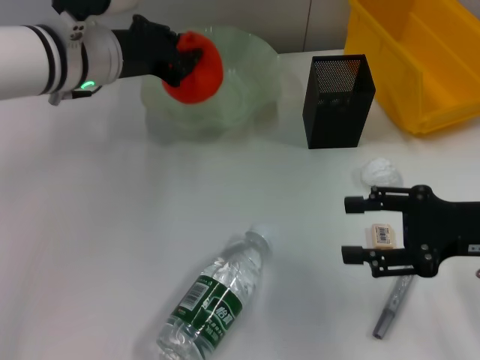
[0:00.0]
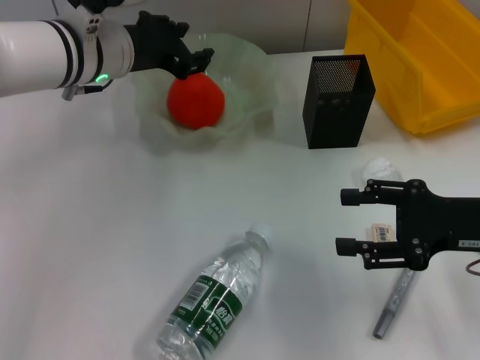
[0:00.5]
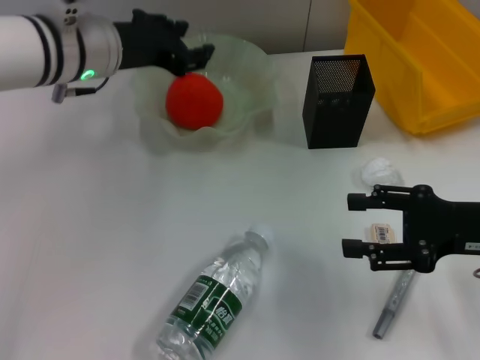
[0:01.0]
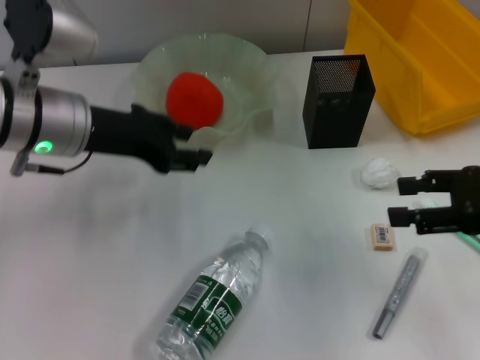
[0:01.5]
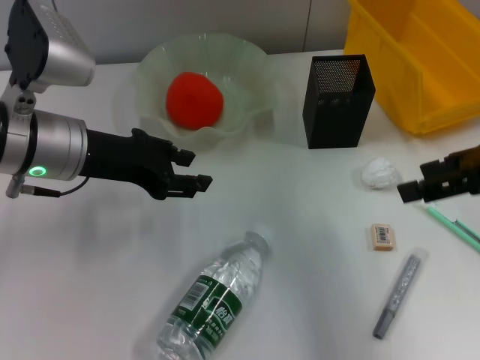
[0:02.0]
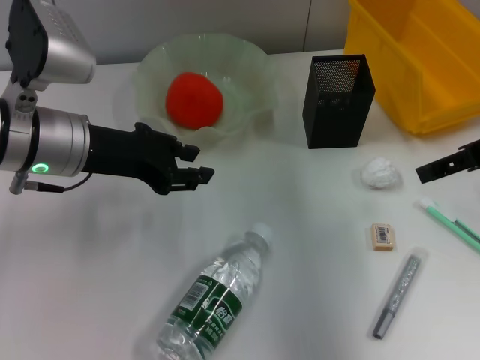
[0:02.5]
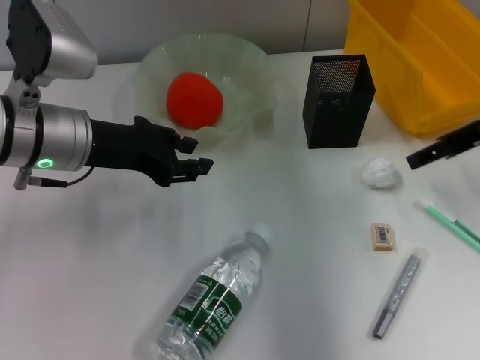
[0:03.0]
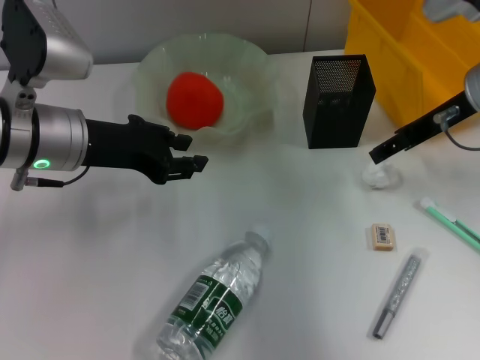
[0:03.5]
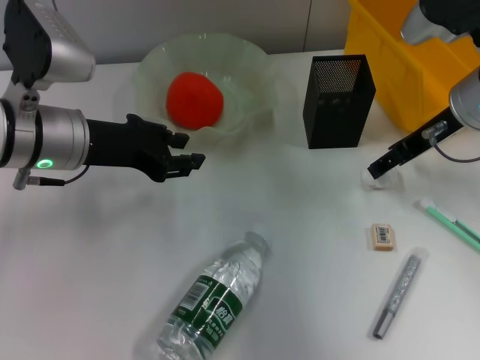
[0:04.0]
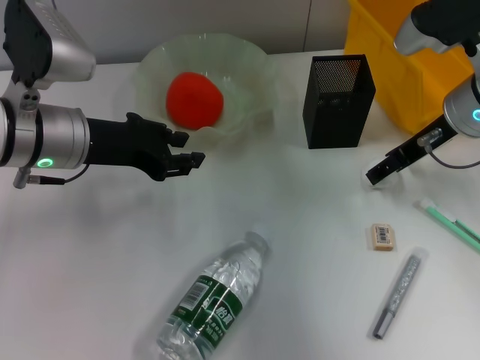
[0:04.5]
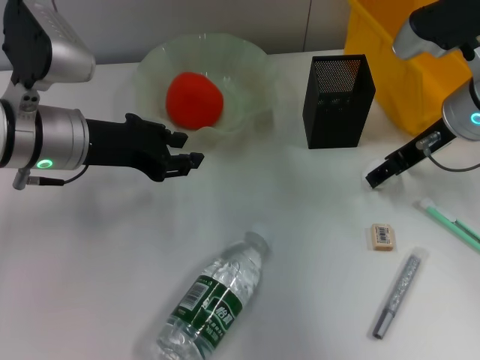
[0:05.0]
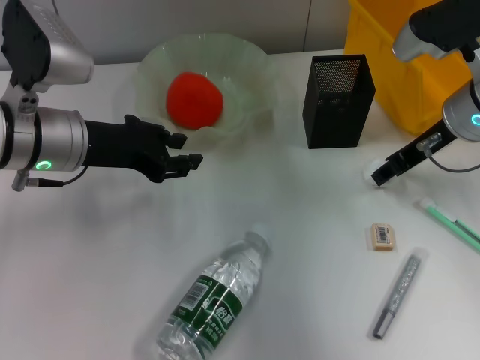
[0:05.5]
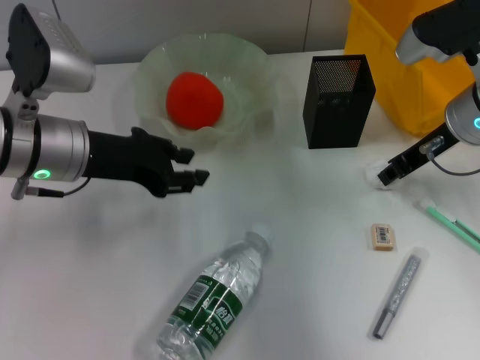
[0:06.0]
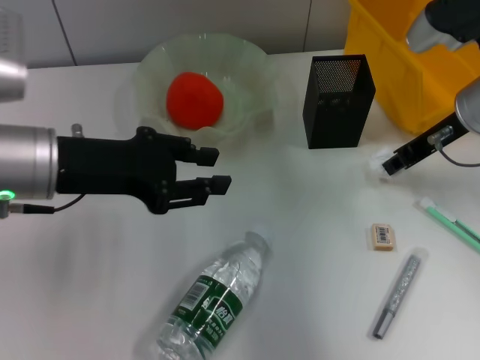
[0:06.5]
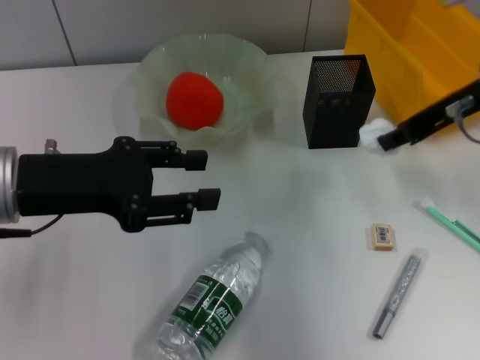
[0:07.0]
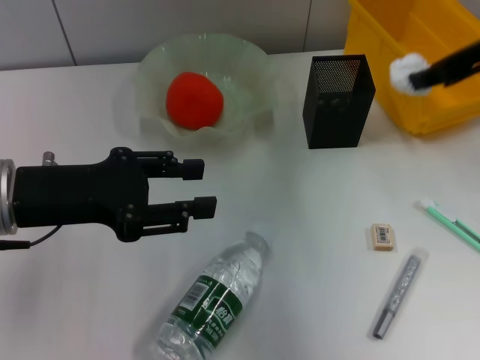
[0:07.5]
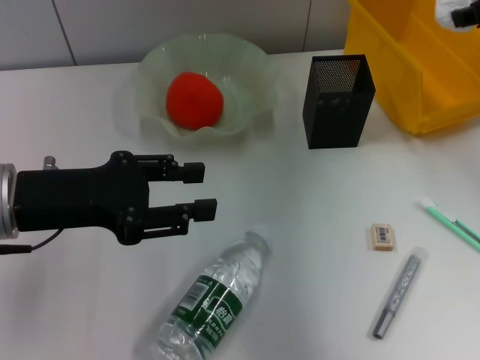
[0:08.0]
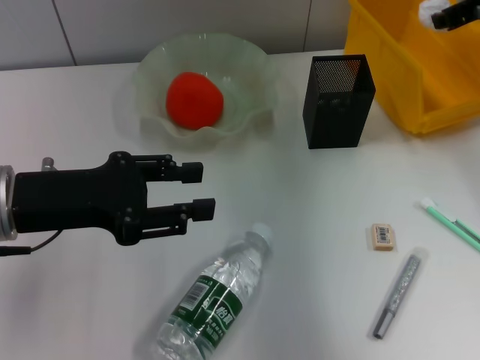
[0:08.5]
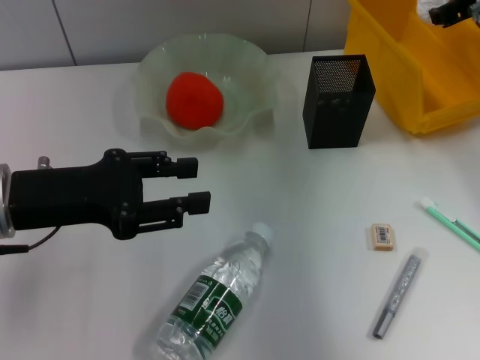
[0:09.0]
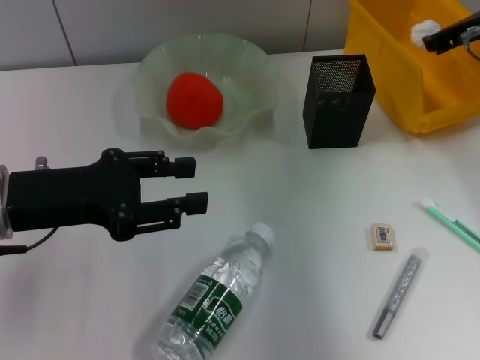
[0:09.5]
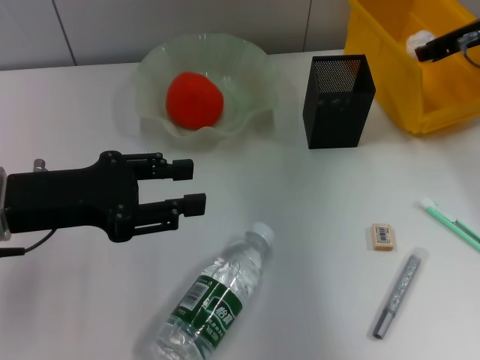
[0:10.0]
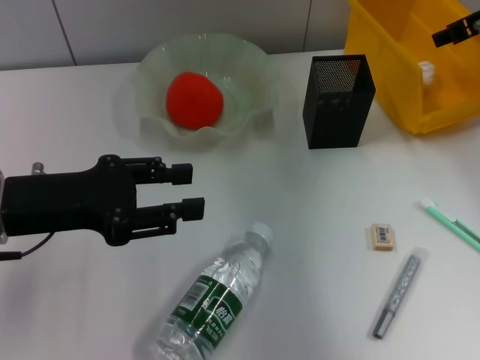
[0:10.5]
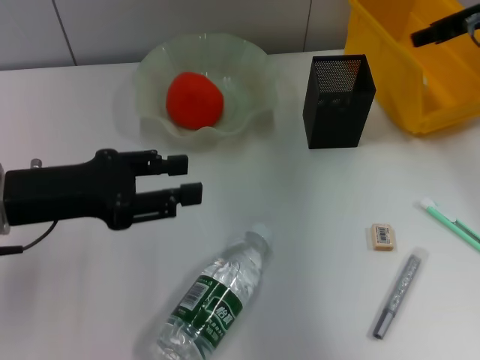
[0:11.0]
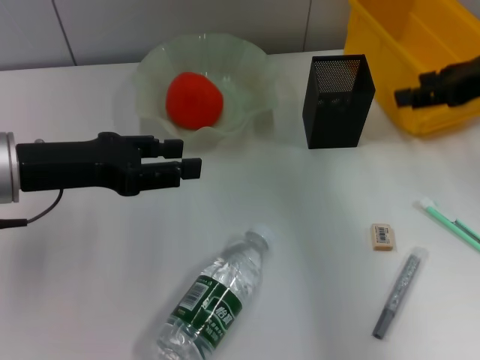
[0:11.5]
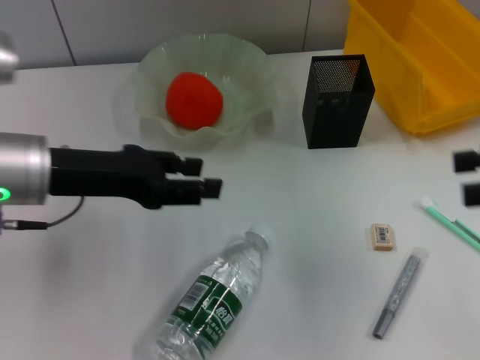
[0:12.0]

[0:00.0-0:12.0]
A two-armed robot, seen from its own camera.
Step, 0:01.0 to 0:06.0: Grab the paper ball with the right hand.
Step, 0:06.5 to 0:10.0: Place the paper ball into the trash can with the right hand.
0:00.0 to 0:02.0: The left gripper moves backward, roughly 5 cm, and opens its fingers, while the right gripper shifts about 10 cm upward.
0:02.0 to 0:04.0: The right gripper shifts approximately 15 cm forward, downward and to the left.
0:04.0 to 0:06.0: The right gripper closes.
0:06.0 to 0:08.0: The left gripper travels backward by roughly 5 cm. The right gripper is displaced upward by some 15 cm.
0:08.0 to 0:10.0: The right gripper is displaced downward and forward by about 10 cm.
0:10.0 to 0:12.0: The right gripper travels backward by approximately 20 cm, and opens up.

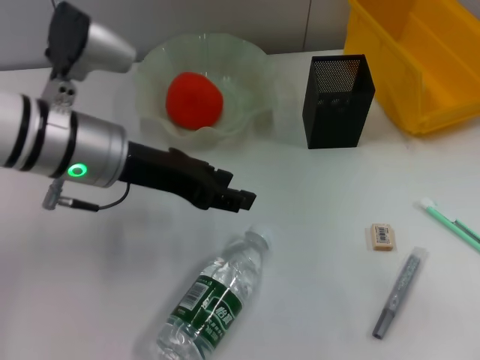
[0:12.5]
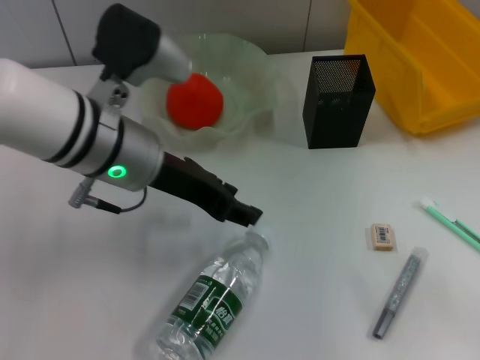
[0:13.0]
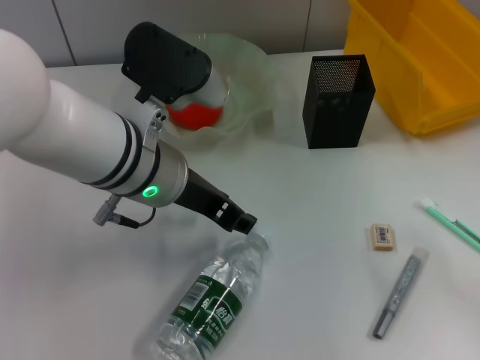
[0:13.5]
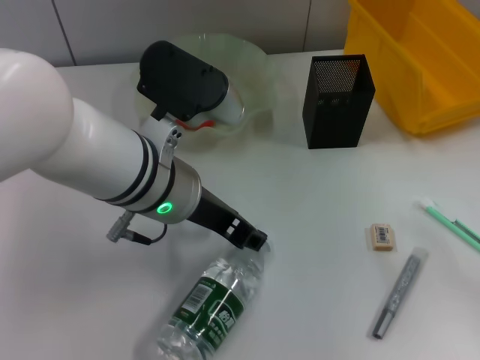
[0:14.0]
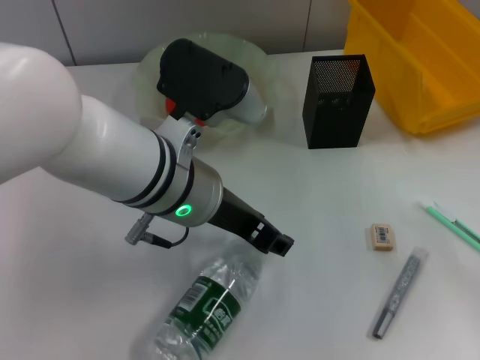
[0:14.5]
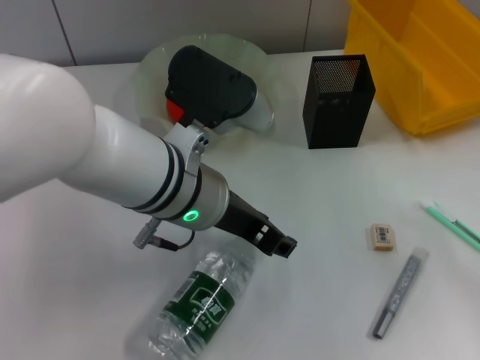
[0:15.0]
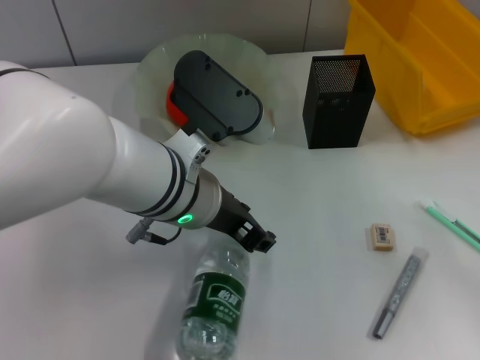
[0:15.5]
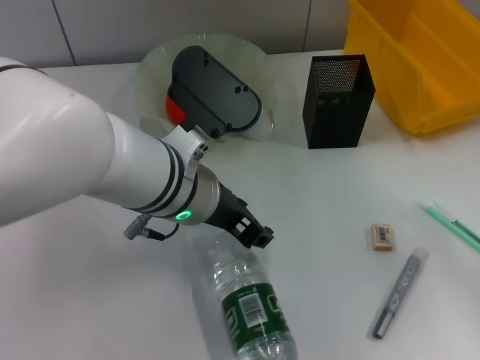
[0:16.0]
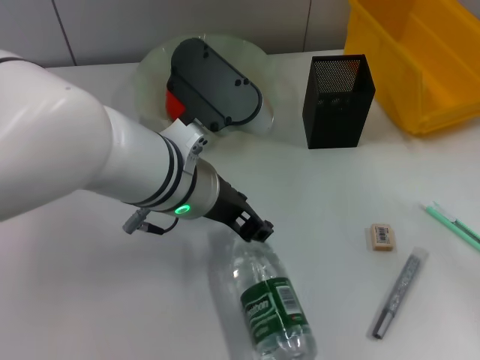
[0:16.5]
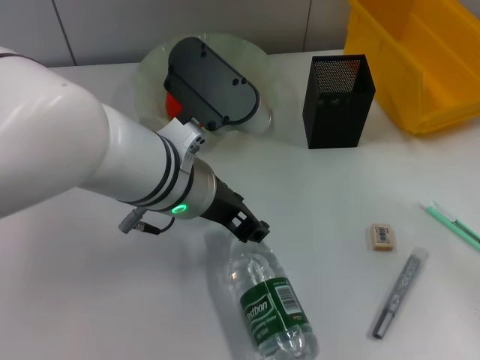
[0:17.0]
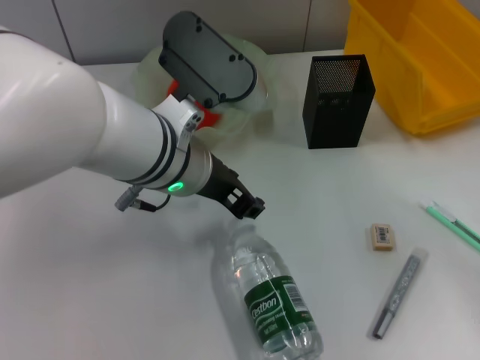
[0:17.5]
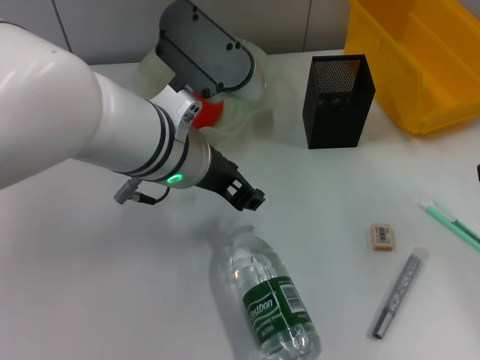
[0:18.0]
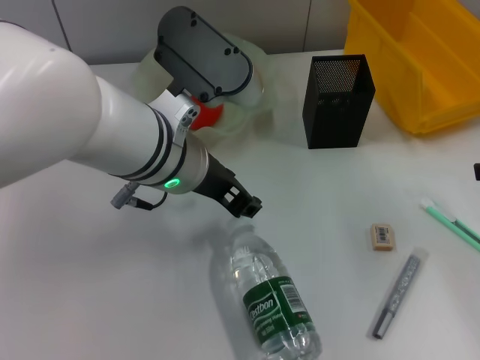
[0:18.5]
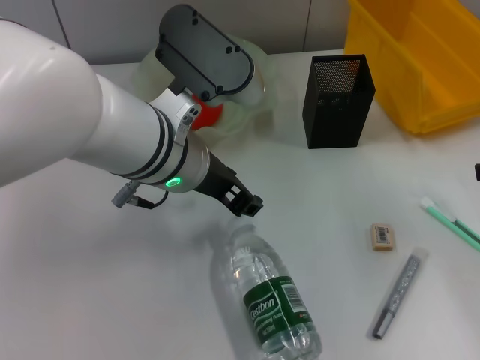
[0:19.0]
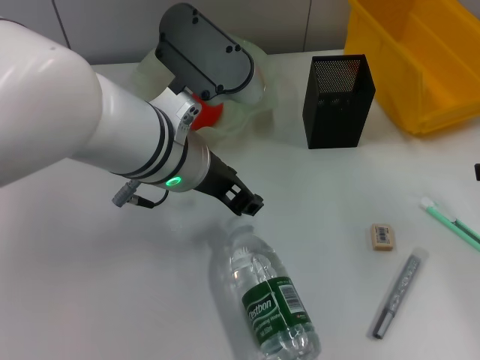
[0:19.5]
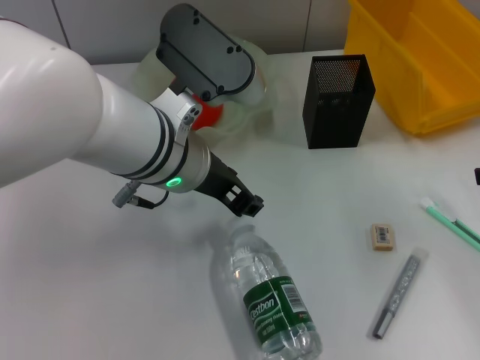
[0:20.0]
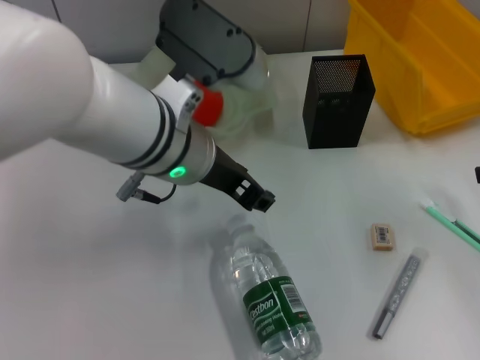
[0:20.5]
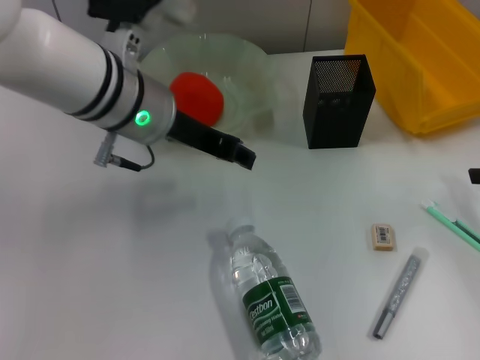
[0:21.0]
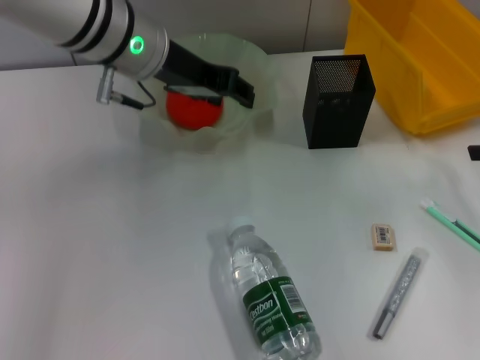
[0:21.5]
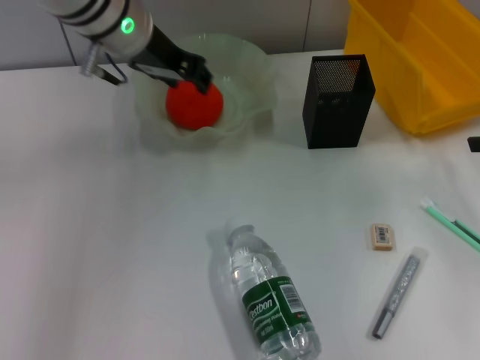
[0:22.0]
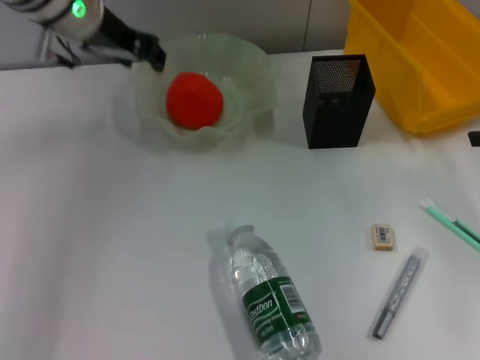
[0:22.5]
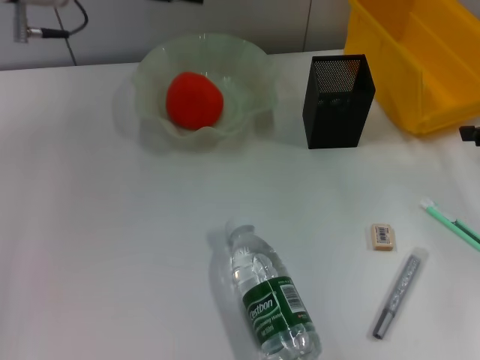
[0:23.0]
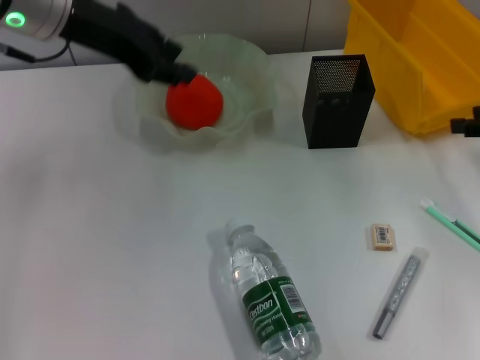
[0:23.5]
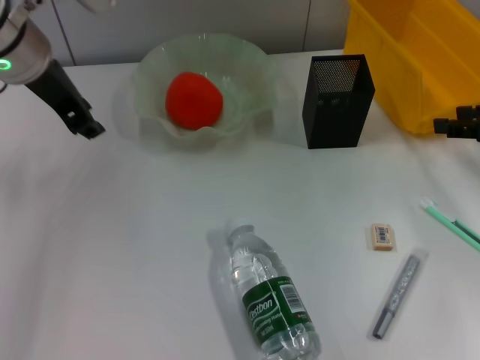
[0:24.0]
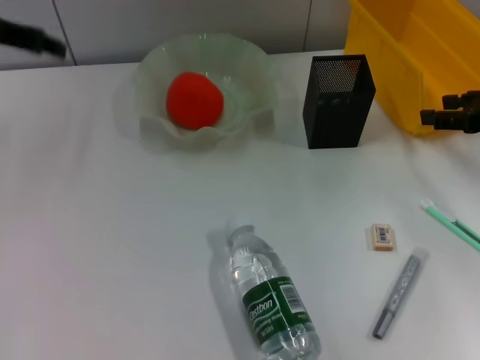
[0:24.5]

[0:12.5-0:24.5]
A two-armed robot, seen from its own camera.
0:12.5 to 0:14.5: The left gripper moves to the right, roughly 10 cm.
0:14.5 to 0:16.5: The grippers stay close to where they were, moving slightly.
0:18.5 to 0:20.5: Neither gripper changes place.
0:20.5 to 0:22.5: The right gripper moves forward, some 5 cm. Meanwhile the left gripper heads forward, to the left and upward, covering some 15 cm.
0:22.5 to 0:24.5: The right gripper moves some 5 cm. Meanwhile the left gripper travels to the left by some 15 cm.

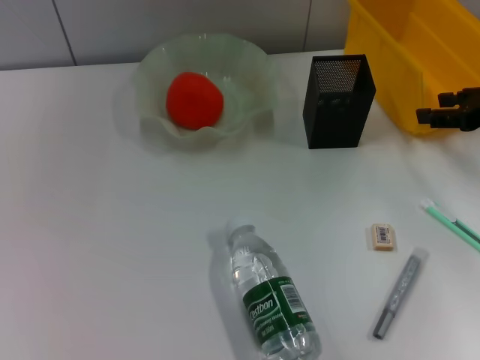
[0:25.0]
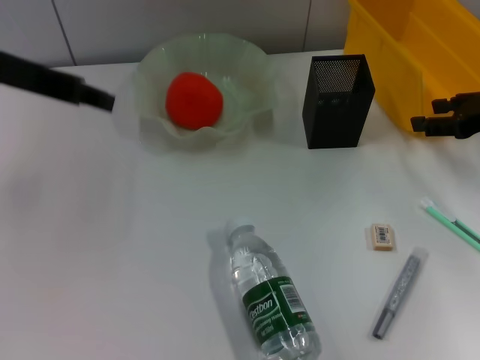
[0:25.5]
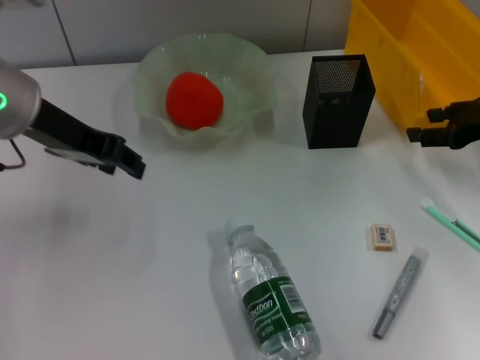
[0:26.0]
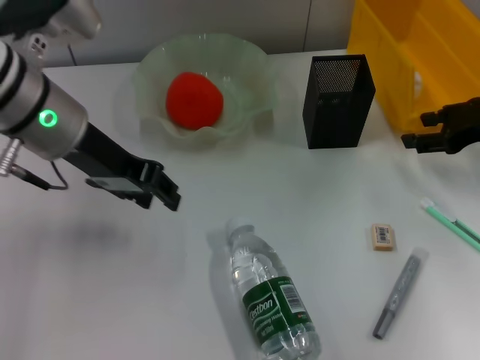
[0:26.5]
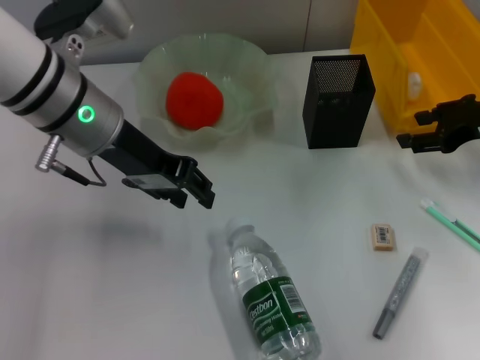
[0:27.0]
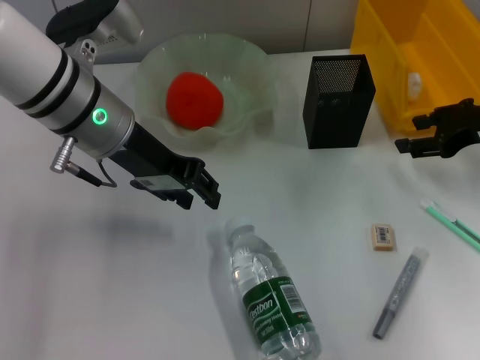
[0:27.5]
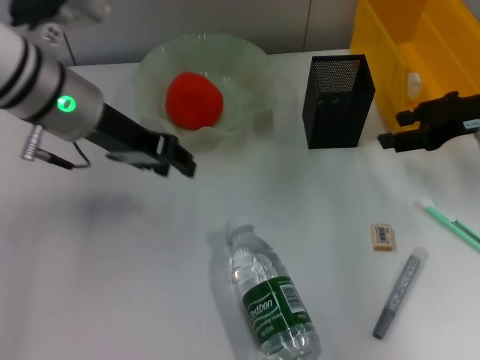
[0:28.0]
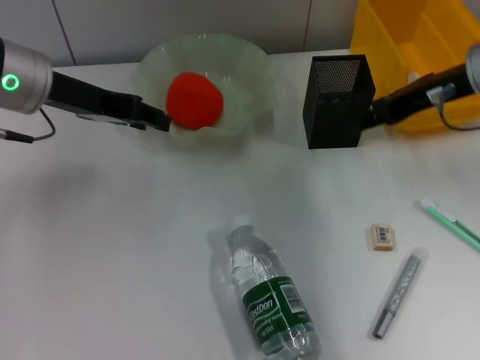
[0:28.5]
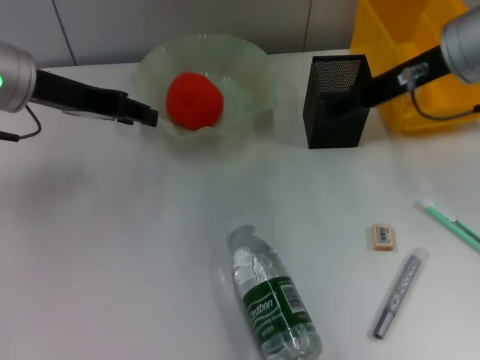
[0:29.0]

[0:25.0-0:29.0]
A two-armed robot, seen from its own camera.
0:25.0 to 0:27.0: The left gripper moves to the right and downward, approximately 15 cm.
0:27.0 to 0:29.0: The left gripper heads to the left, covering some 10 cm. The right gripper travels to the left and upward by some 15 cm.
